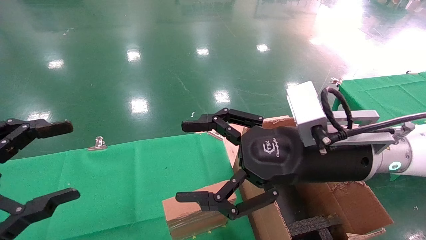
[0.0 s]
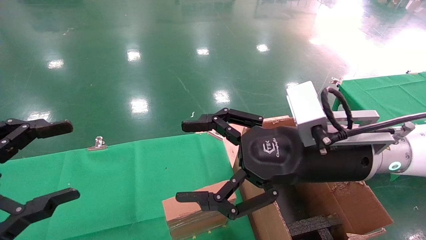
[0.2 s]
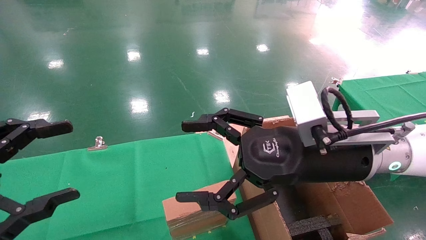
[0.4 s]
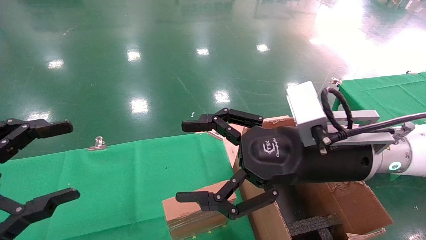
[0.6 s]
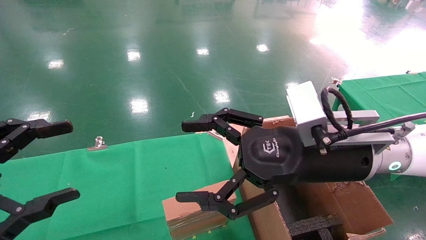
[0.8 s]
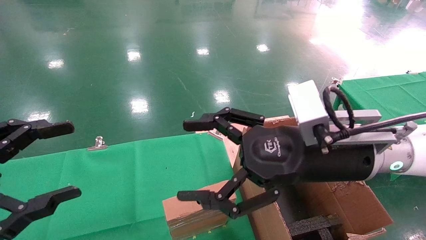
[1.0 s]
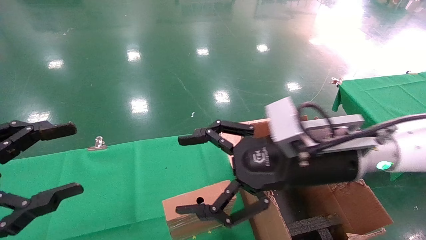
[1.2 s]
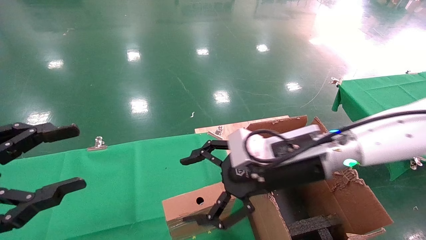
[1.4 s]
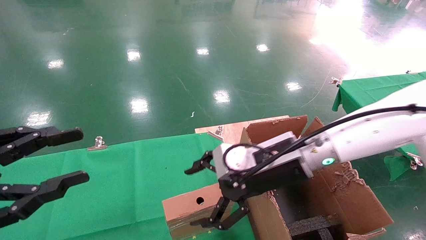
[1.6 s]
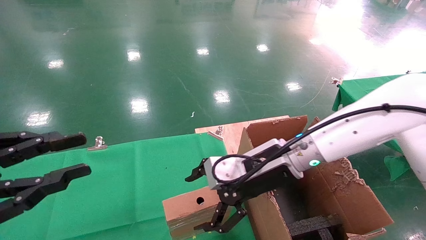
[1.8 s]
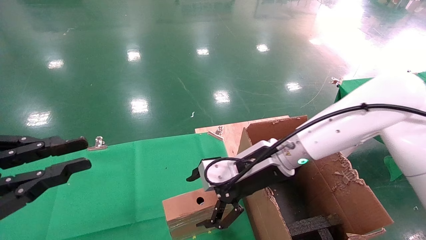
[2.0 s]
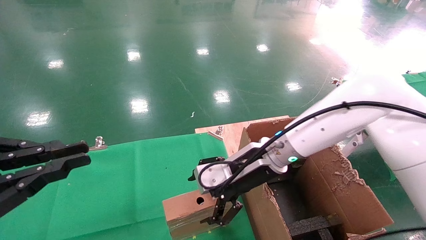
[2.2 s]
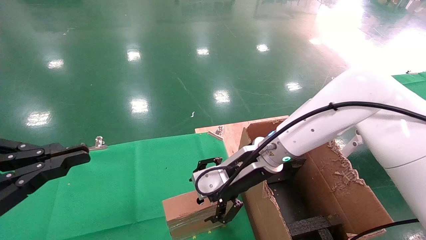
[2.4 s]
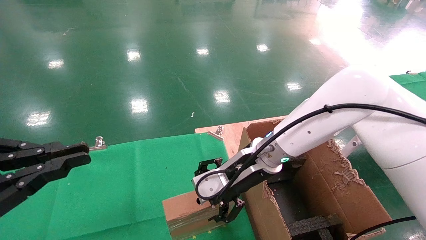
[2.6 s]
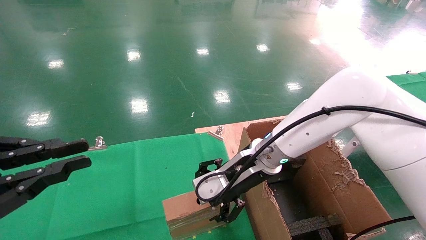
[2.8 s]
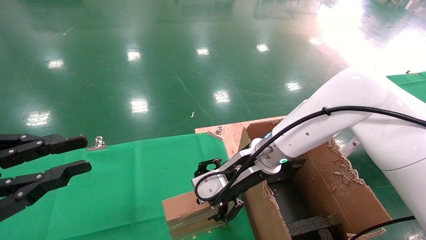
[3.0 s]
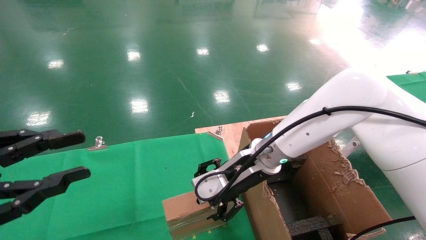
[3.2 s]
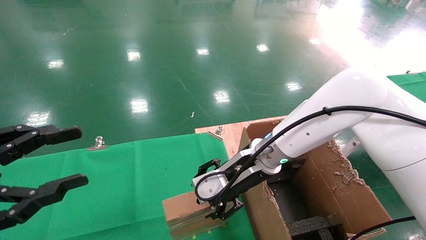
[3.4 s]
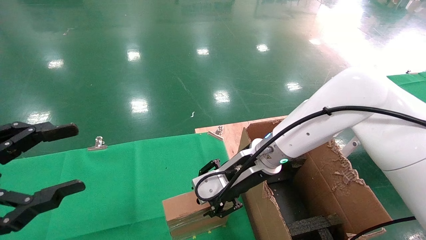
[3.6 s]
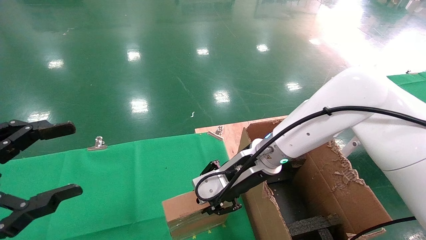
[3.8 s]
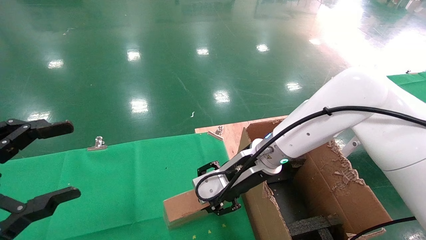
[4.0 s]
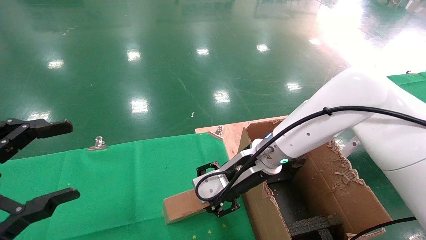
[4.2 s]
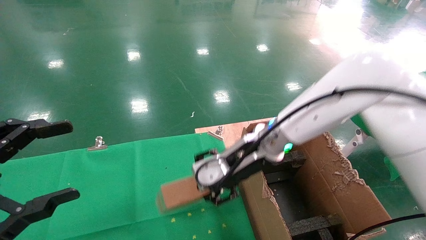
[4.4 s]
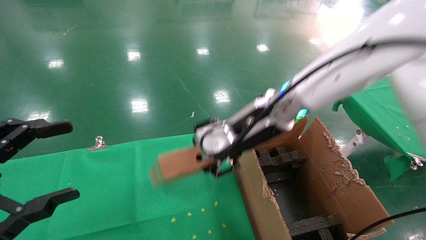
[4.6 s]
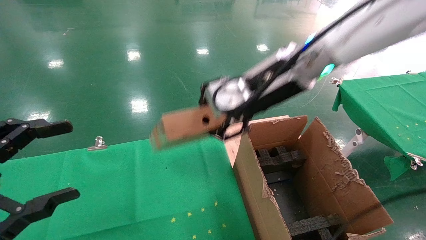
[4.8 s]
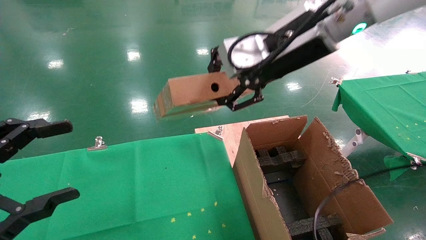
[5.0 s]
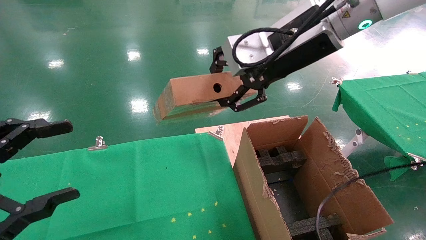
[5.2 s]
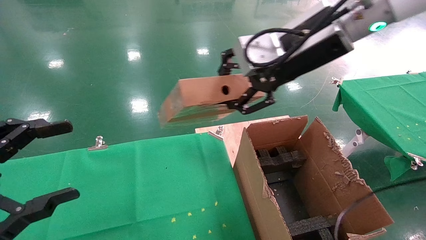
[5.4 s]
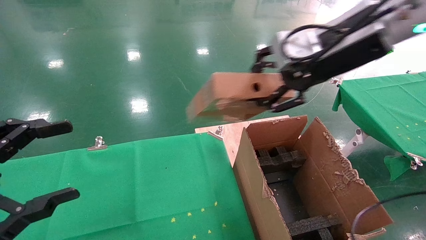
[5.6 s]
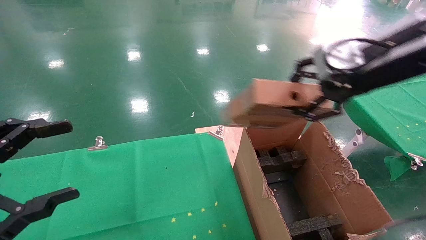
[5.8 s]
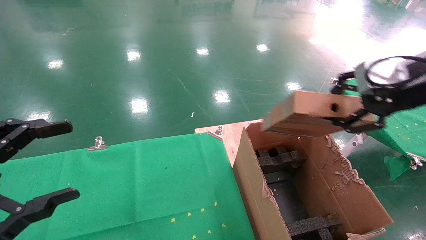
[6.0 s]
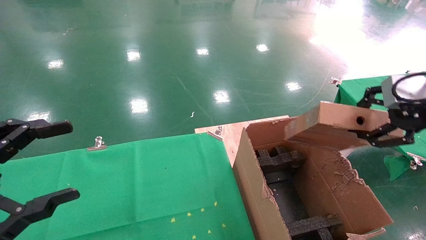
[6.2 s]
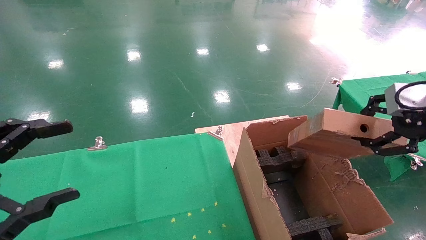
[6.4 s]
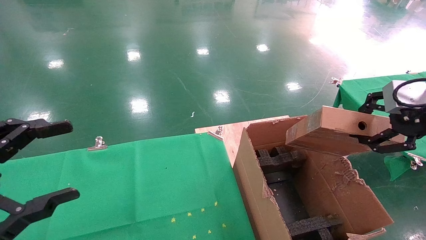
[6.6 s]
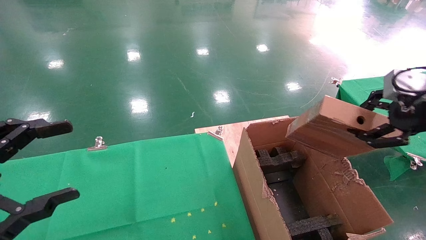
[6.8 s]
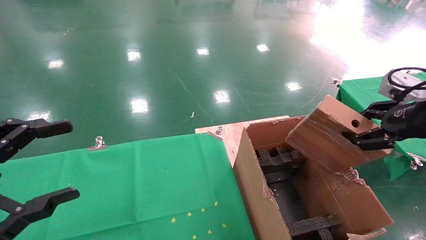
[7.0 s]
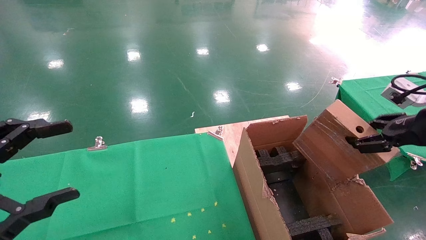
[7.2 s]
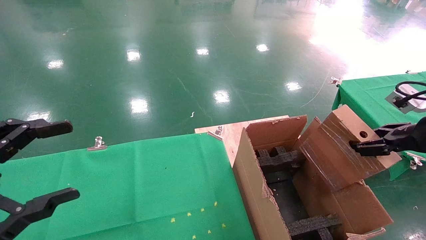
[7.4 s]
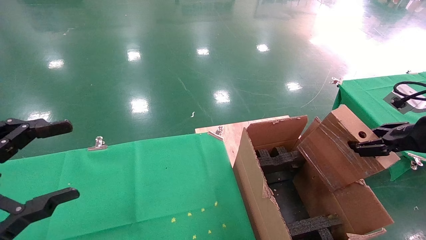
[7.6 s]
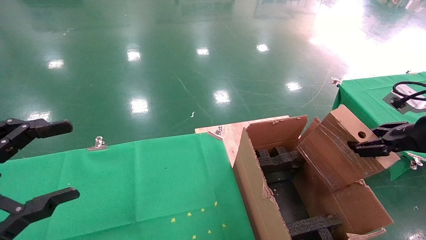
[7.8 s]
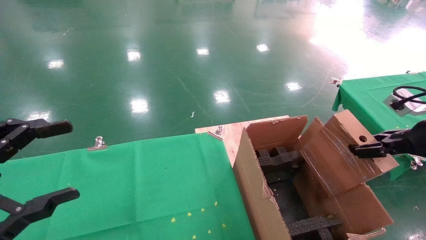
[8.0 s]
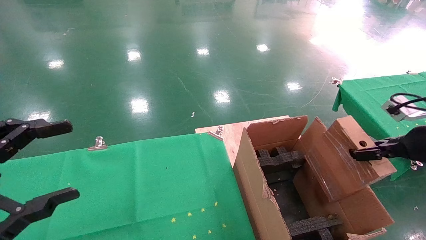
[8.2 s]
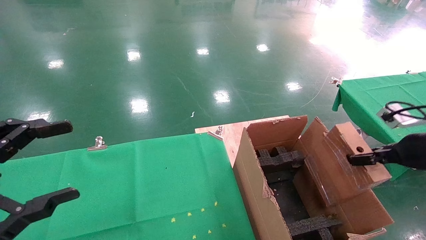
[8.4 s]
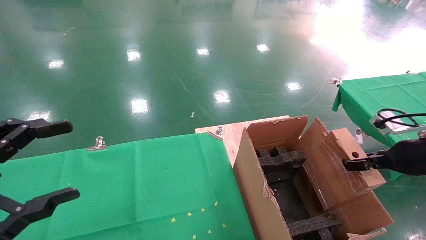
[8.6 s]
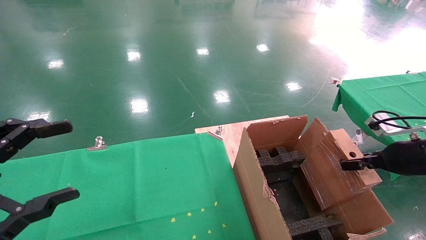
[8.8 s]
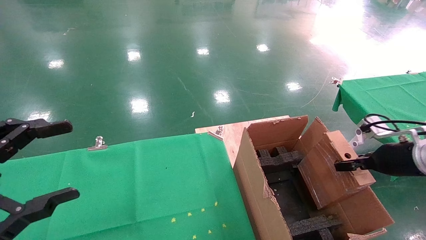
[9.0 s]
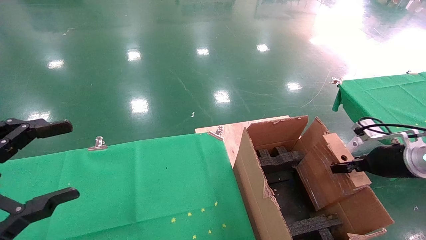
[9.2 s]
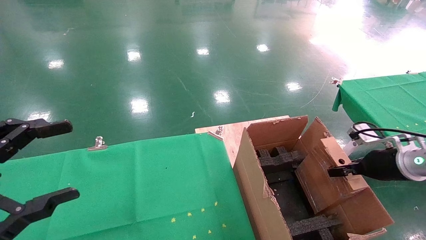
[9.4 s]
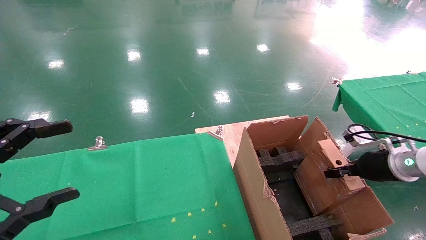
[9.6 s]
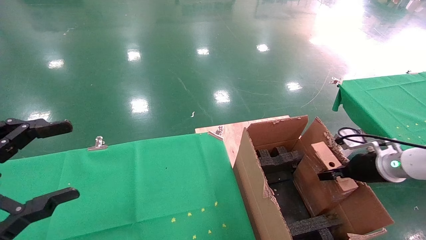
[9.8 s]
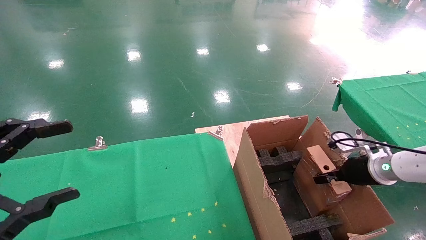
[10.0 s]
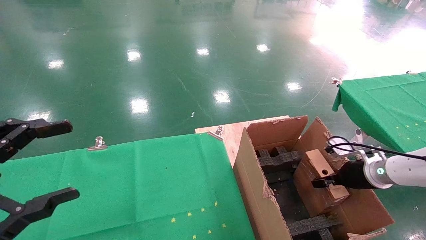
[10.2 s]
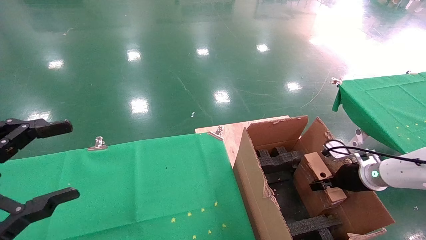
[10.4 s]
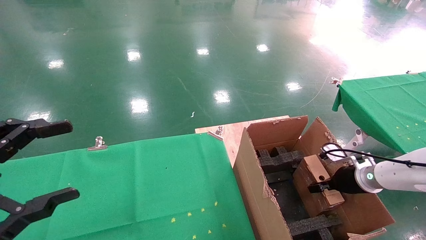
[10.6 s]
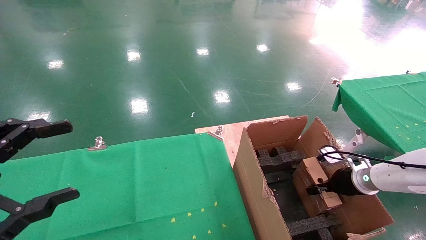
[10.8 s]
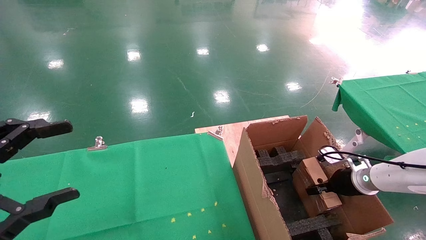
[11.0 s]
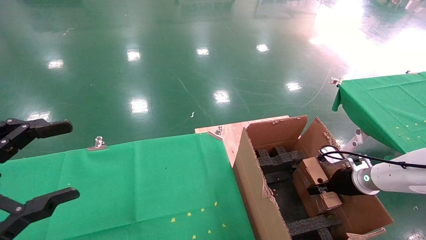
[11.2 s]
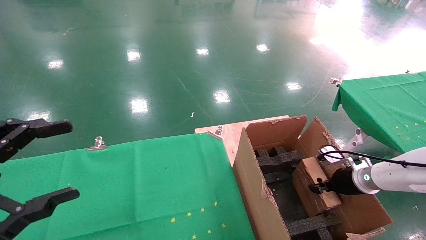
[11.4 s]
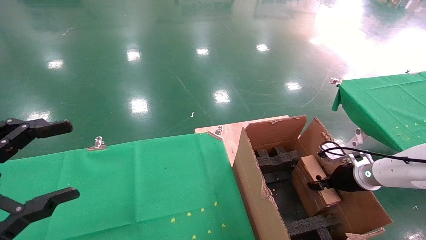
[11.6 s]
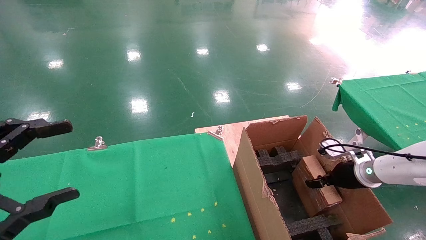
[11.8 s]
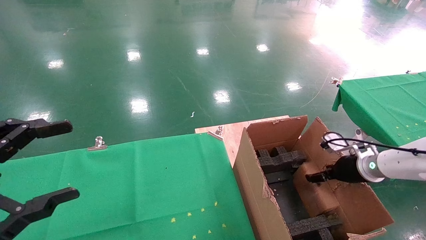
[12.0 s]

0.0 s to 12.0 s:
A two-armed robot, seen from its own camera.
Task of the whole recording: using a robotic arm to pick up a cardboard box and palace it the carton.
Step, 1.2 to 4.0 s: Pick up the mouse and the power cord paper box.
0.0 to 1.6 s: The right gripper heads forward, covering some 5 cm; the left gripper closes its fingers.
1.6 to 3.0 s: The right gripper changes place by about 5 cm; the left gripper closes up.
3.0 to 4.4 s: The right gripper ends up some 5 cm from where it was, and closes. The left gripper opens up.
4.4 to 6.0 s: The right gripper goes roughly 30 cm to the right, upward and backward.
6.0 to 7.6 s: The right gripper goes approximately 15 cm downward and to the right.
7.6 to 9.0 s: The right gripper heads downward and forward, covering approximately 10 cm.
9.0 to 10.4 s: The right gripper goes roughly 10 cm downward and forward.
10.4 to 12.0 s: The right gripper opens up.

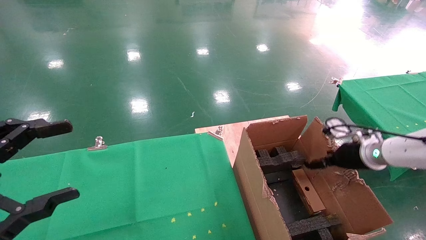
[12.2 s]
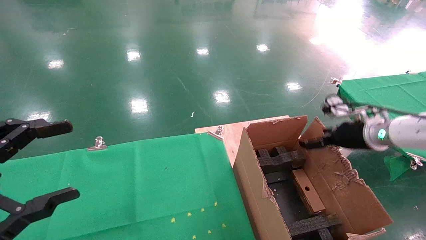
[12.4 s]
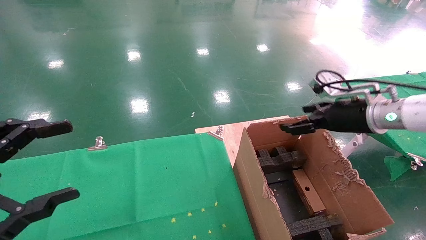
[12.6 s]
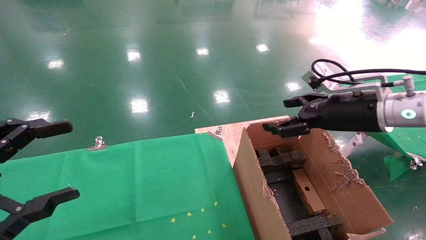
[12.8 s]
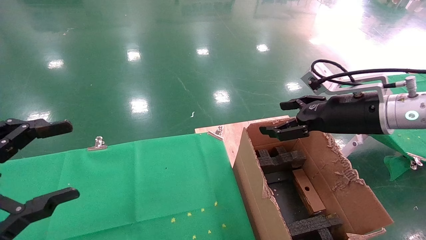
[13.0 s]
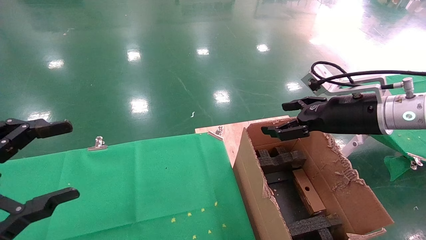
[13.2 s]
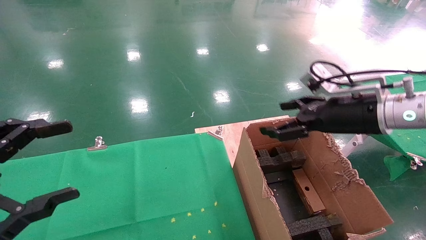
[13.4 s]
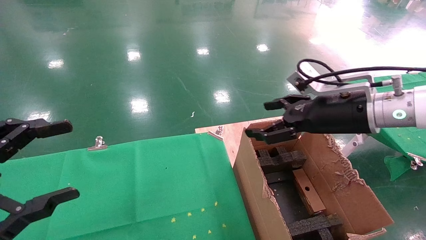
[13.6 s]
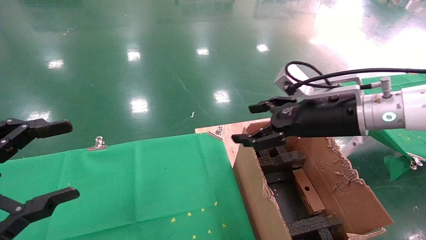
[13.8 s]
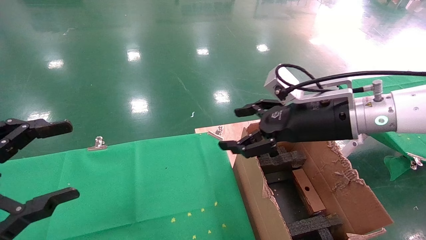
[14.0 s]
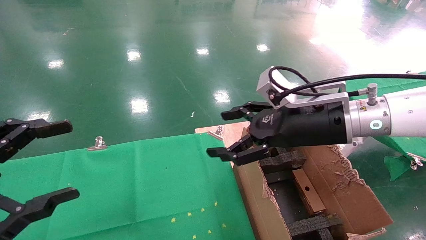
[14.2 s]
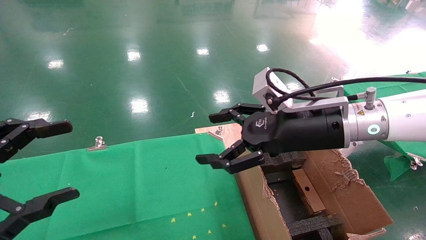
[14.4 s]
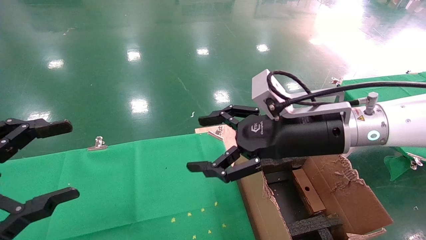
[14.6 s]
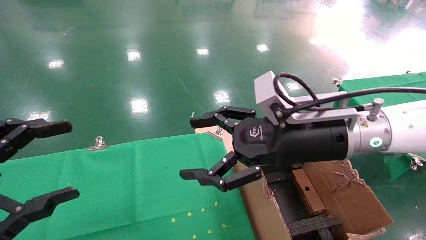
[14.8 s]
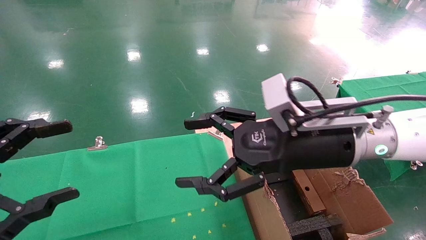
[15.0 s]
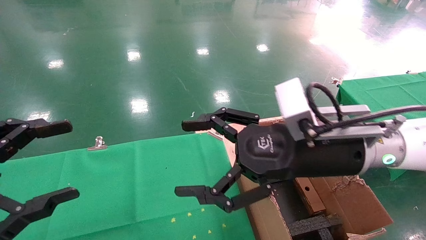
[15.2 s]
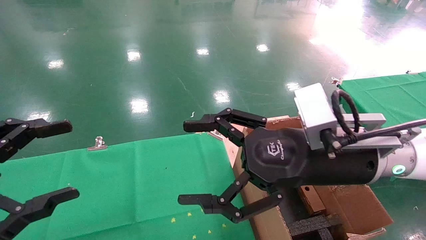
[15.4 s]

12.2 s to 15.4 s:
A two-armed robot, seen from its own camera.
Task of the whole recording: using a robotic arm to pick up a cardboard box and palace it the carton.
12.2 to 13.8 s: The right gripper shifts about 20 cm to the left, upward and backward.
13.8 to 15.4 s: The right gripper shifts about 10 cm to the left and backward.

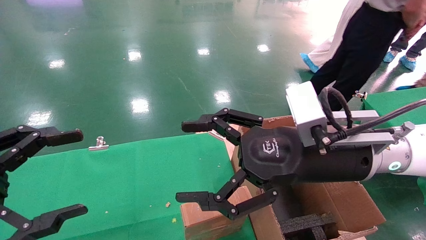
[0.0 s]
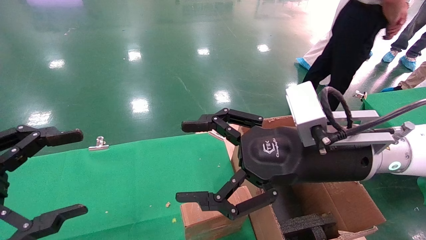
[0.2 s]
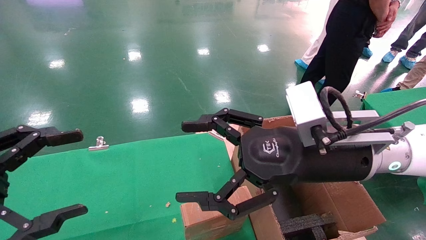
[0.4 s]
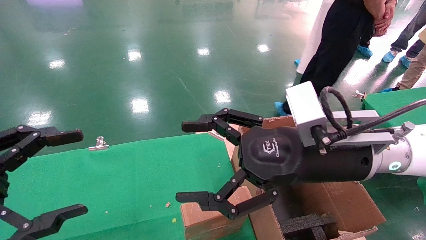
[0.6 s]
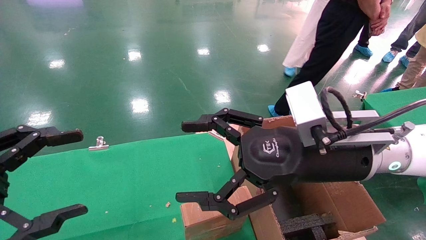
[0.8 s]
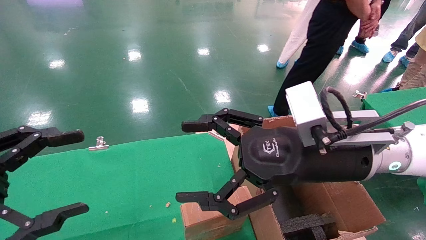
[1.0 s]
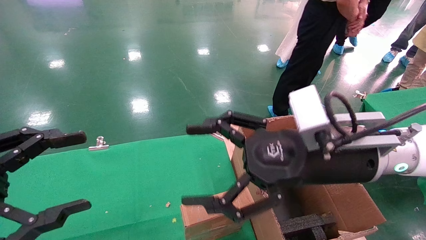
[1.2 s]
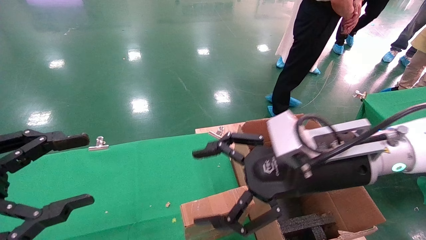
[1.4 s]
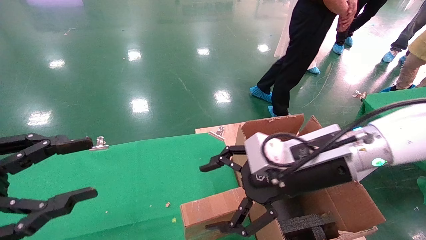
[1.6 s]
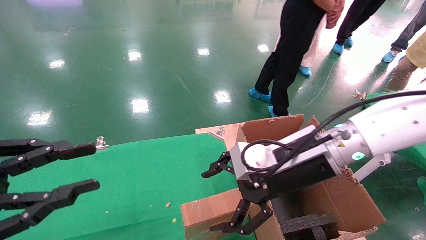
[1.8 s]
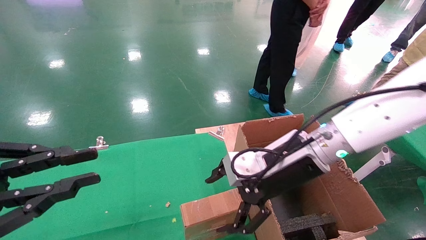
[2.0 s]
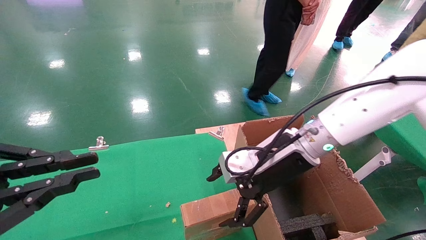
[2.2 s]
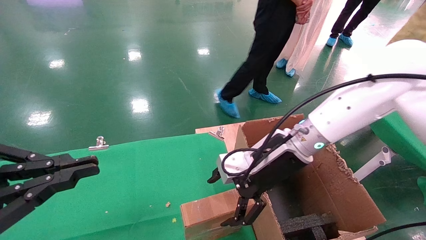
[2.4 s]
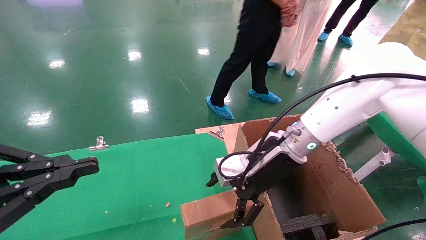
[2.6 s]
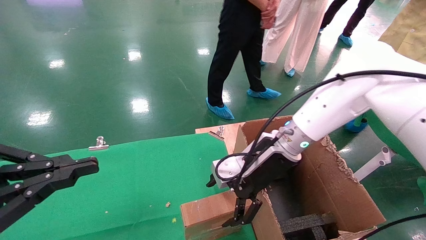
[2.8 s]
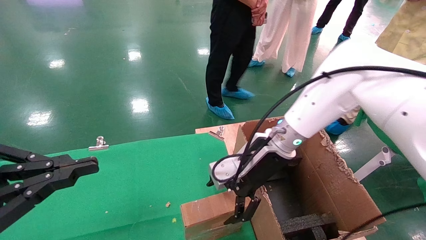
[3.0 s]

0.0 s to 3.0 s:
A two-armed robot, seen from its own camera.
Task of the whole recording: using a robotic arm to pick up a cardboard box and palace it the carton.
0.0 to 1.6 s: The left gripper closes its fingers.
1.6 to 3.0 s: The right gripper shifts approximately 10 cm forward, while the left gripper closes.
